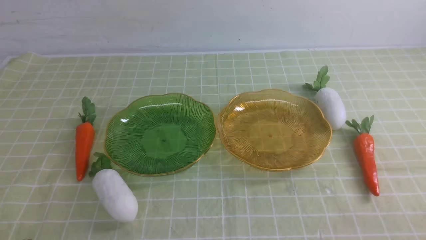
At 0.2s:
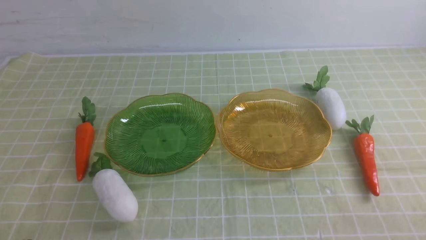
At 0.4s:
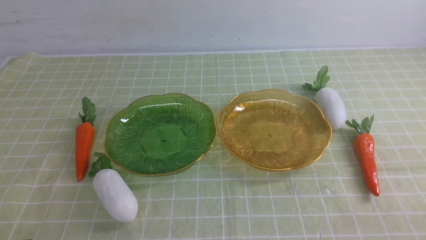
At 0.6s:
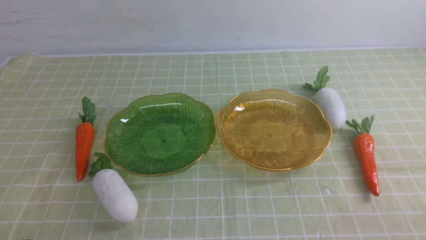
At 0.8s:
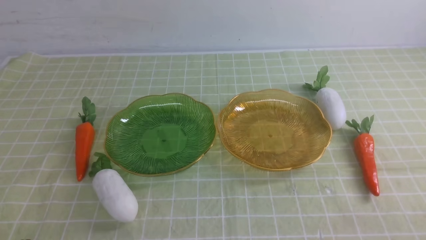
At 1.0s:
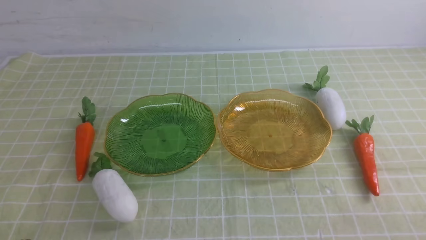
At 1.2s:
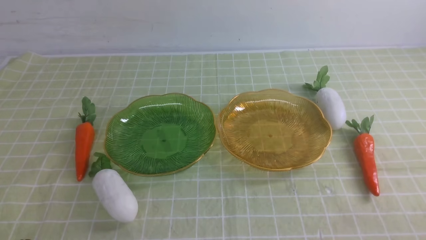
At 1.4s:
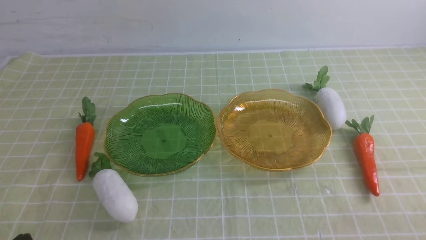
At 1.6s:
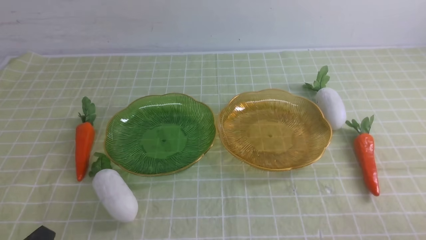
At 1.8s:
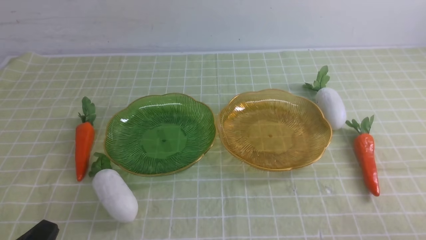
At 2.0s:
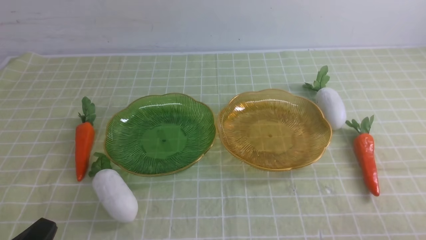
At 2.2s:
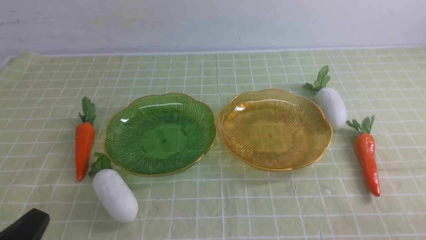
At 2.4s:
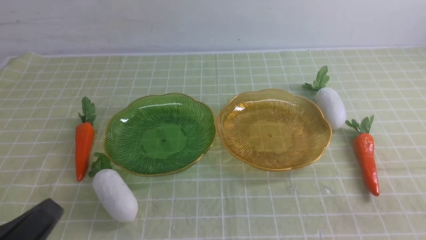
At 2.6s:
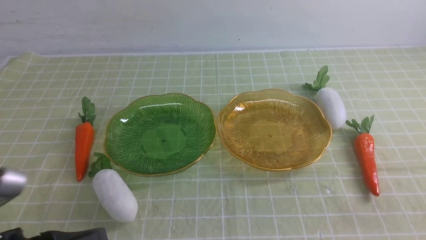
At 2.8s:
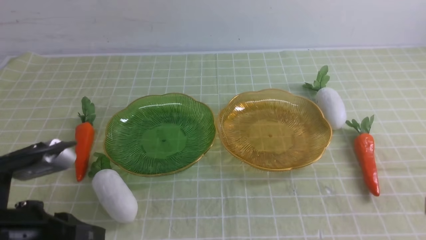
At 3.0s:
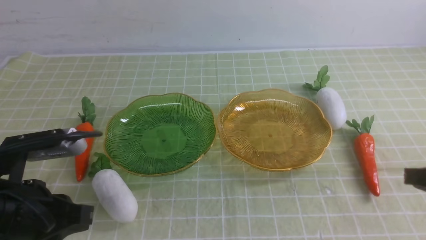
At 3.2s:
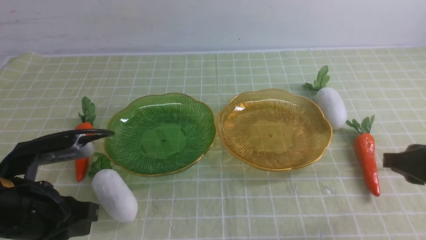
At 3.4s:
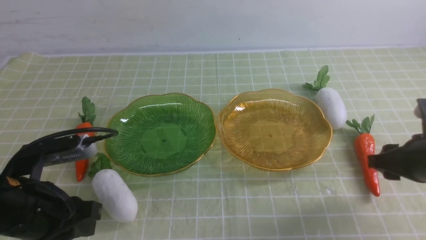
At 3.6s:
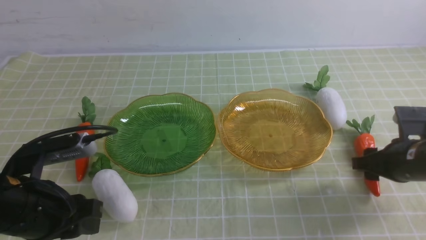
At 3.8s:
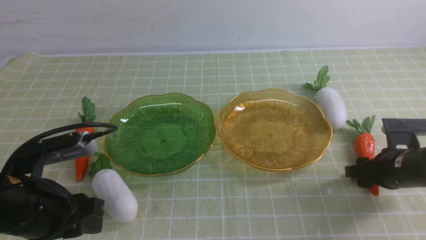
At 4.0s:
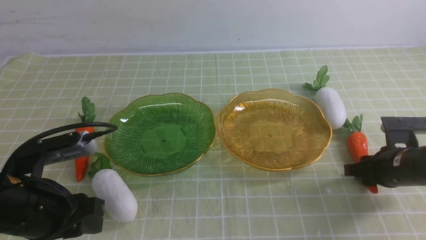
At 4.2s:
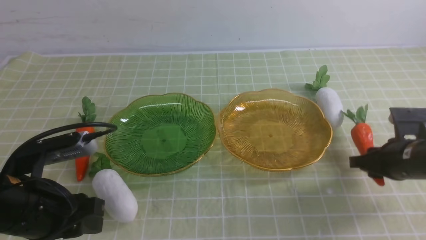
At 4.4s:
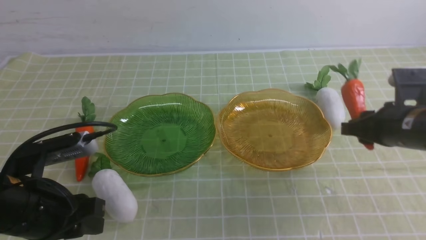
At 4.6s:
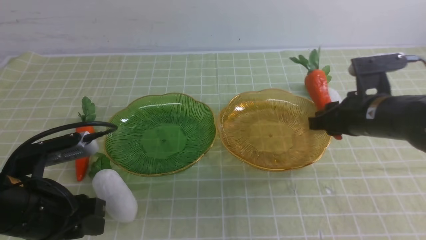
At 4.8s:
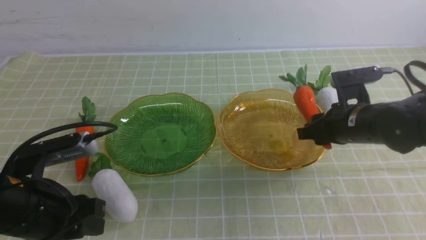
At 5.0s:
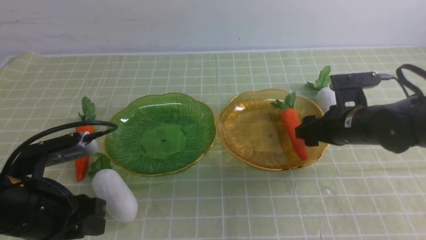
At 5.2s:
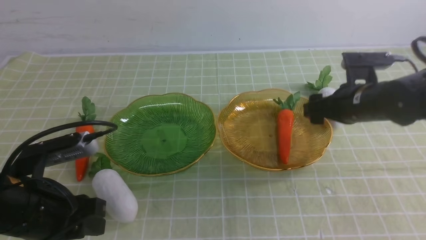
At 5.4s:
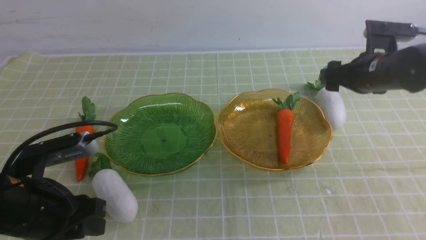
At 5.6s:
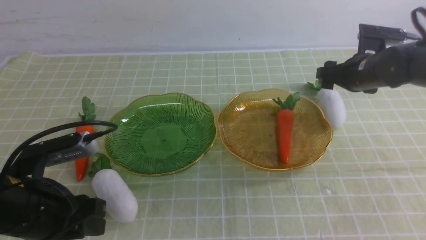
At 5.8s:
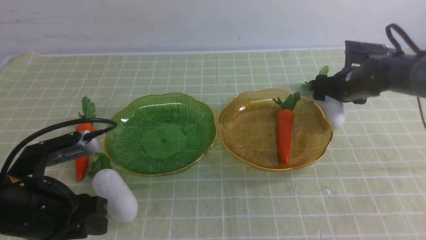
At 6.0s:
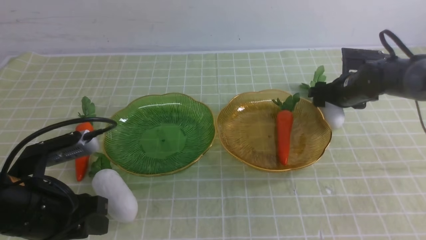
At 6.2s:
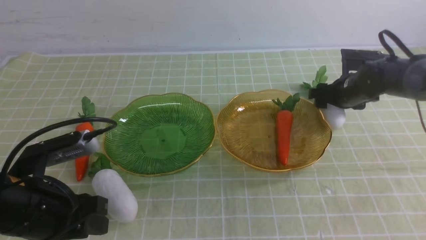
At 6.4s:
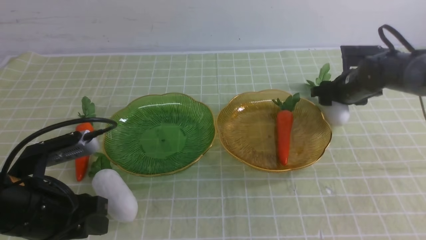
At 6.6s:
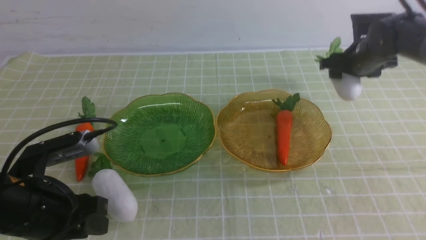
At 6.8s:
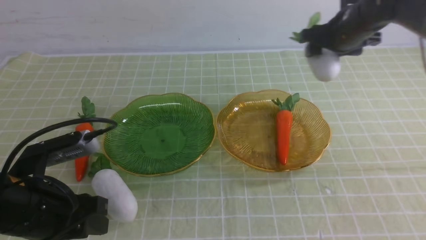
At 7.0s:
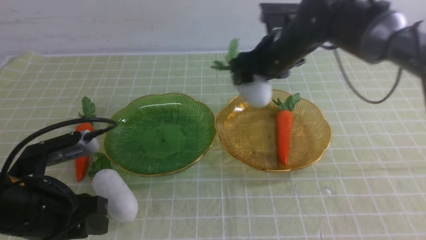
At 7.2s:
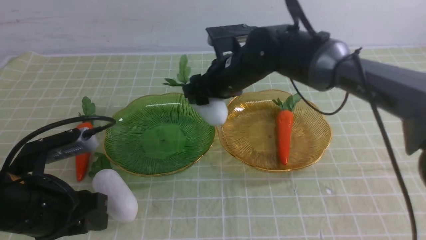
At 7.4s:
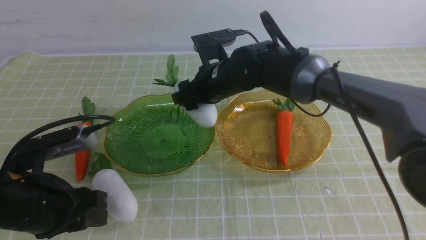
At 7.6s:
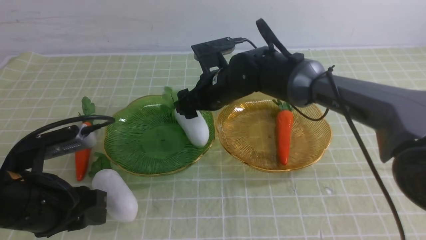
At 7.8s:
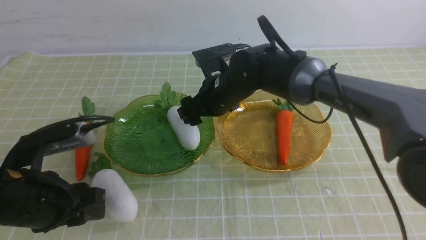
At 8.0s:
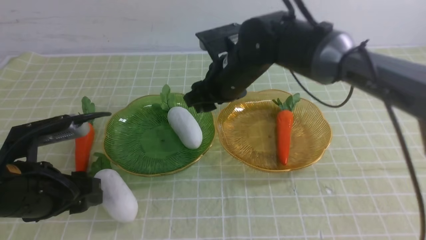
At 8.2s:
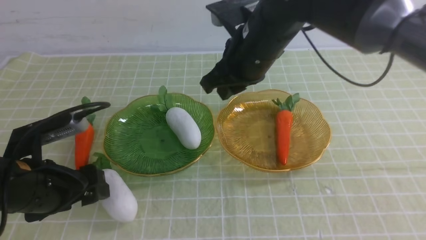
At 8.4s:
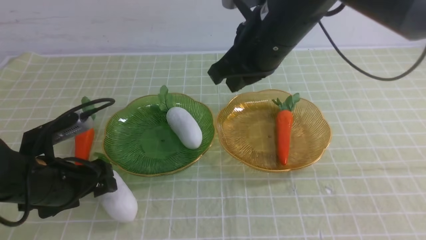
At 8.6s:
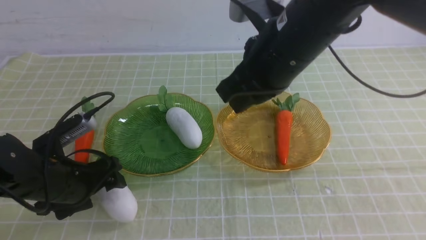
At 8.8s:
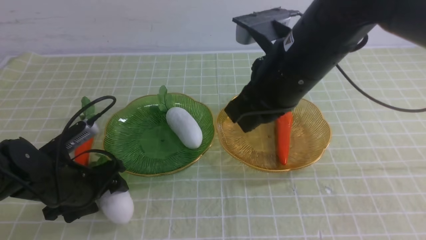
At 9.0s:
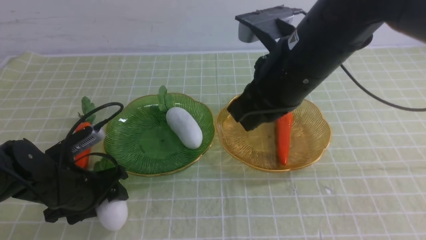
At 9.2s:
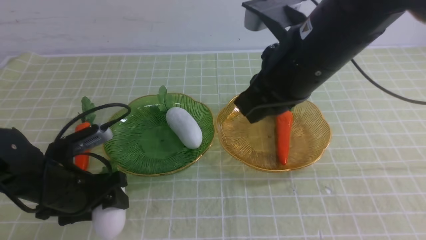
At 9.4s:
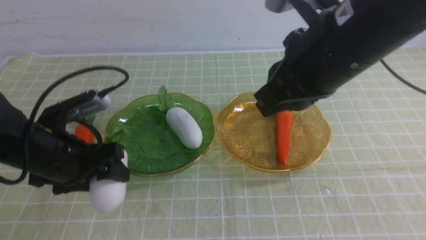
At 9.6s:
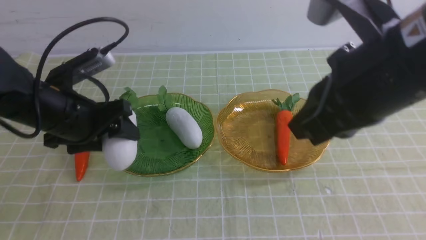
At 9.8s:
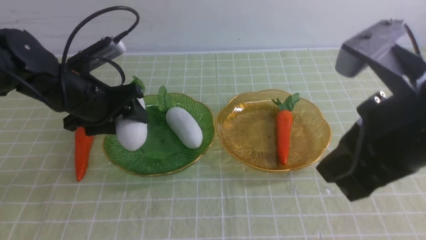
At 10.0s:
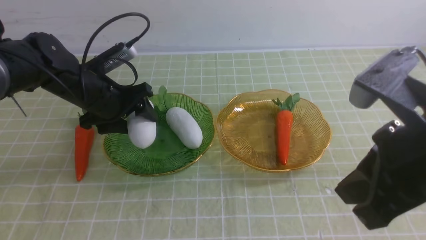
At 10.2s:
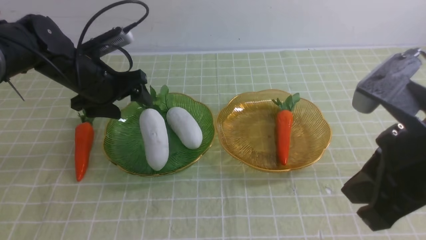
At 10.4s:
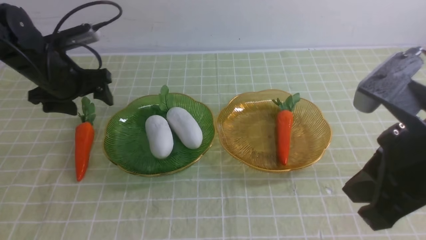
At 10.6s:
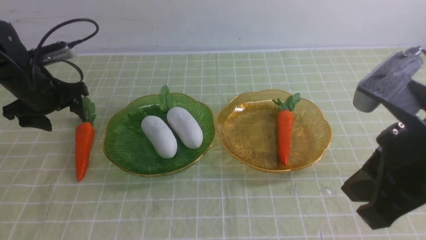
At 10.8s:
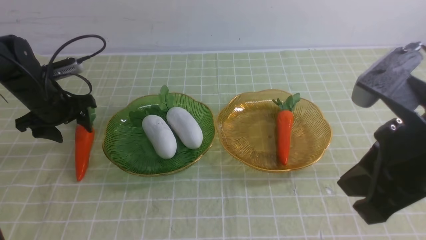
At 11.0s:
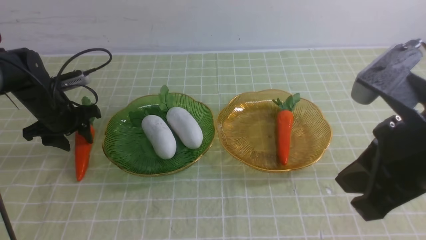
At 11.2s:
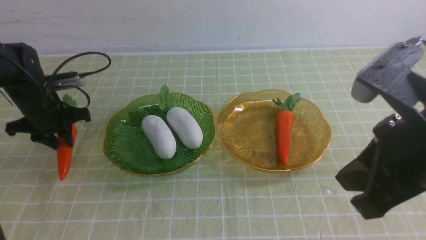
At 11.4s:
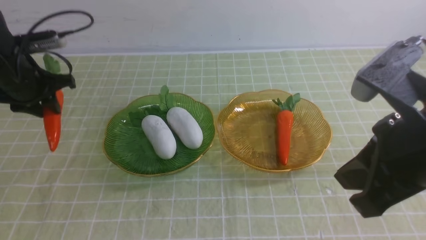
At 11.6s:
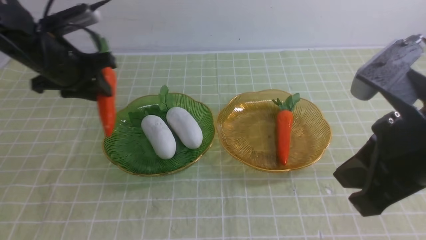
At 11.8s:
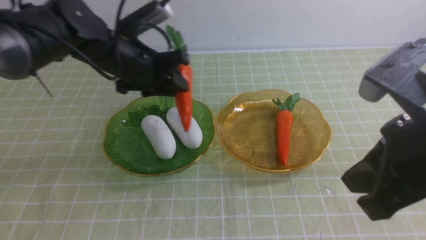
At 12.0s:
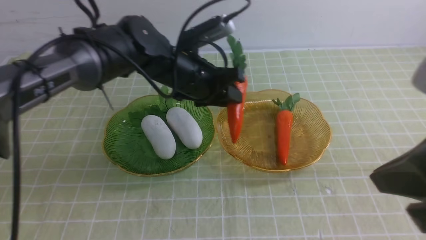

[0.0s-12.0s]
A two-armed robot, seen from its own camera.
Step, 0.0s to 6.4s: use the right arm to grab a carrot and put it into the right plate.
Step, 6.6s to 8.4s: use the right arm to grab a radish and put it into the left plate.
Step, 8.6s to 11.6s: use the left arm to grab a radish and put it into the left plate.
1.6s to 3.0s: The left gripper goes roughly 15 cm forward and upward.
3.0s to 4.4s: The right gripper moves forward, approximately 10 cm. The left gripper opens up.
4.4s to 6.0s: The right gripper is displaced forward by some 15 cm, and opens up.
6.0s to 7.6s: The right gripper is displaced to the left by some 25 cm.
7.6s to 9.0s: The left gripper is displaced downward and forward by some 10 cm. The right gripper is displaced upward, backward and to the right by approximately 20 cm, and closes.
9.0s to 10.4s: The right gripper travels backward and to the right by approximately 15 cm; the left gripper is displaced forward and upward by approximately 15 cm.
10.4s to 12.0s: The left gripper is displaced to the right by approximately 20 cm, and closes up. The right gripper moves approximately 5 cm.

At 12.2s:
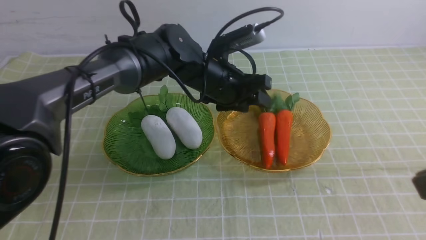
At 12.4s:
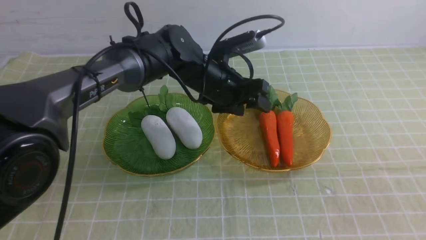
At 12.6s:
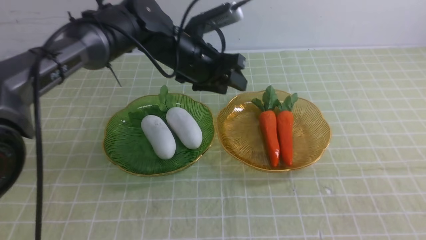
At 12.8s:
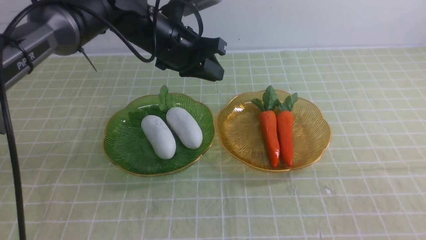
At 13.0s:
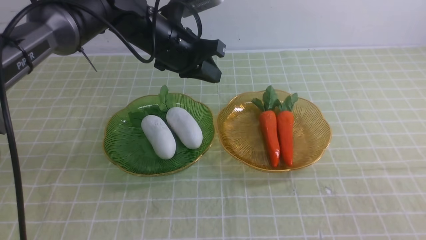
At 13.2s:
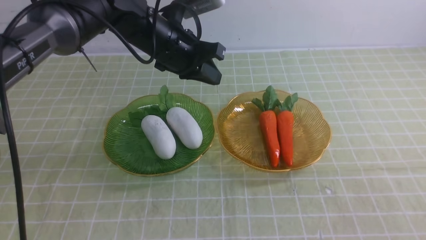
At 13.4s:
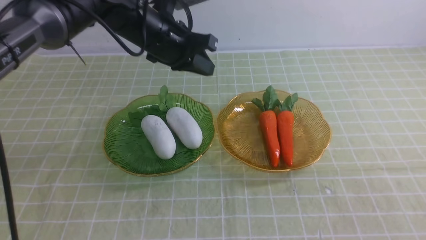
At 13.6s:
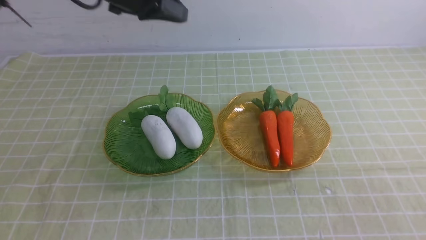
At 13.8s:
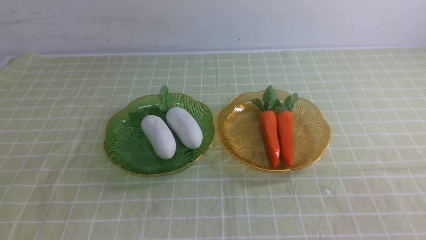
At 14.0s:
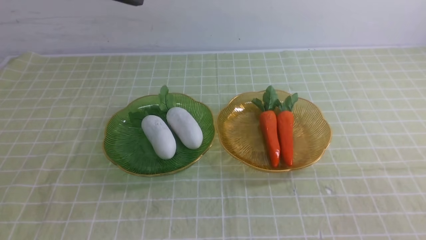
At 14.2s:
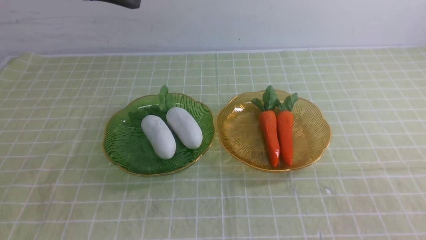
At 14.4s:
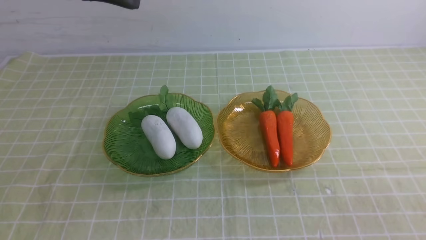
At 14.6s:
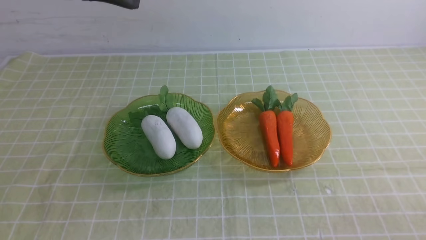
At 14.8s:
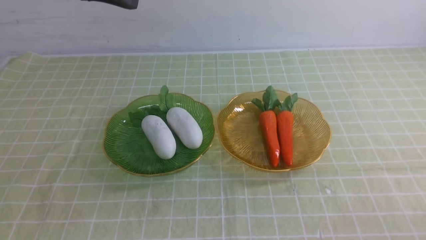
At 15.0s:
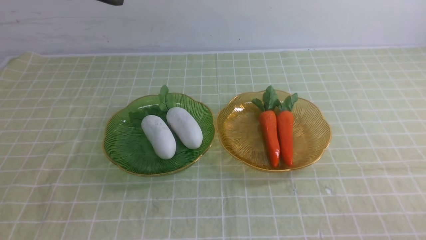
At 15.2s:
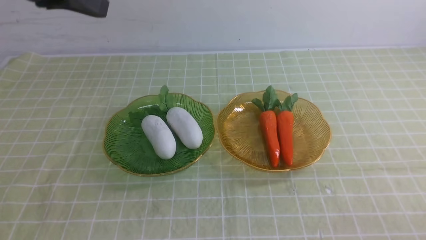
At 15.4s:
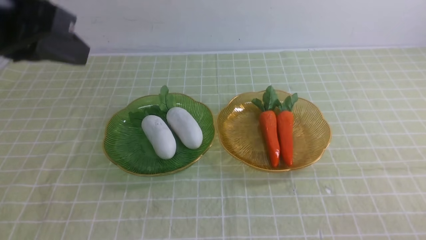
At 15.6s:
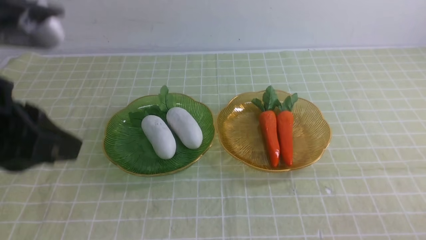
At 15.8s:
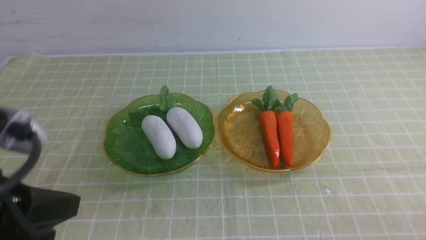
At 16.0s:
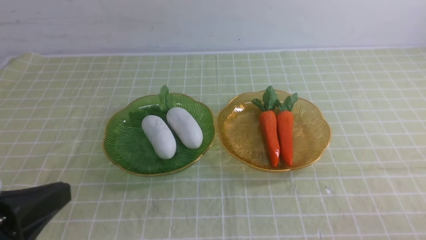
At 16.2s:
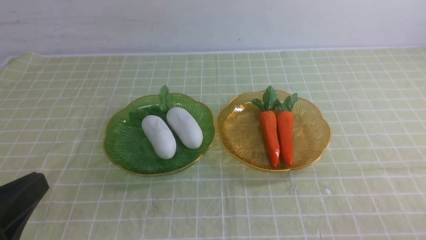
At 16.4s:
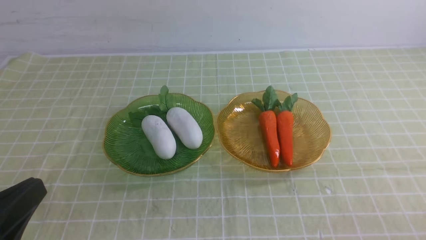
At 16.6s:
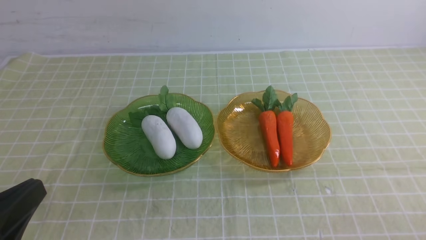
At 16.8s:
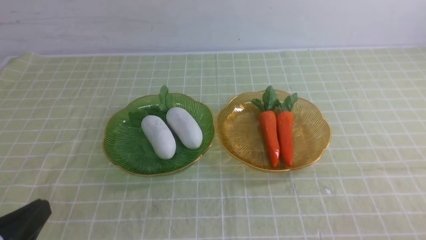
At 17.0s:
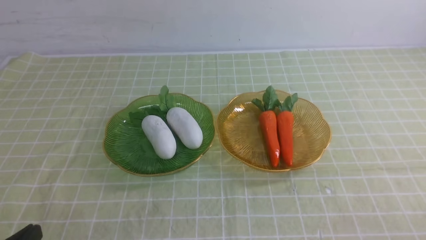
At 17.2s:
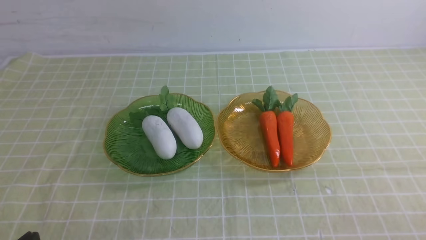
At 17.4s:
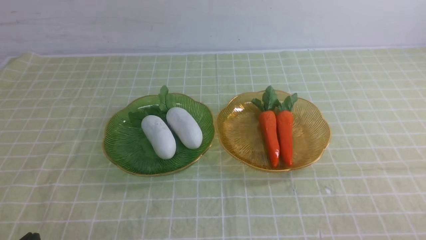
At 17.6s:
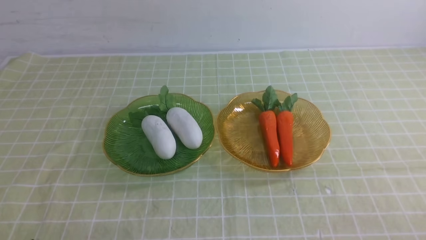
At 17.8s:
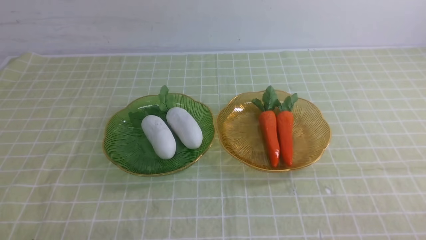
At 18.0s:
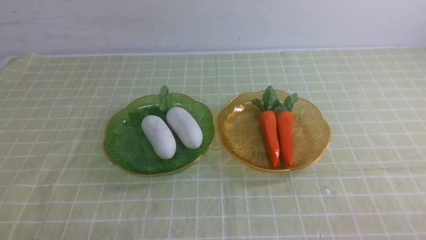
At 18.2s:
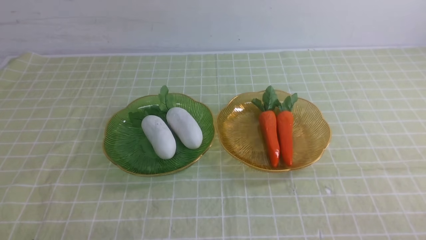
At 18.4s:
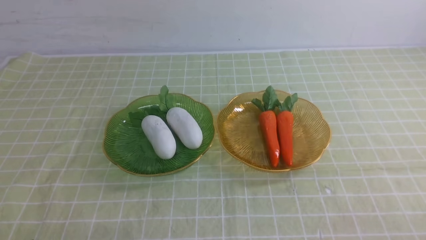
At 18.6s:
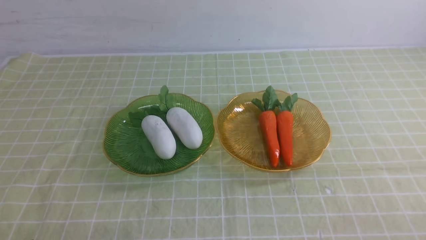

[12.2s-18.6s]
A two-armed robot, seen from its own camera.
Step, 12.2s to 13.2s: use the left arm to grab a carrot and put it into the right plate.
12.2s to 13.8s: The right gripper moves downward, about 10 cm. The left gripper goes approximately 25 cm upward and to the left, and closes.
13.8s to 15.4s: The left gripper shifts about 15 cm backward.
15.4s to 17.0s: The left gripper travels downward and backward by approximately 30 cm.
